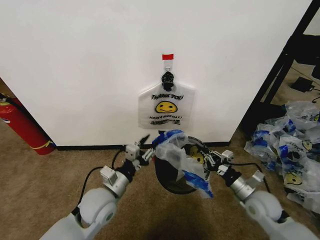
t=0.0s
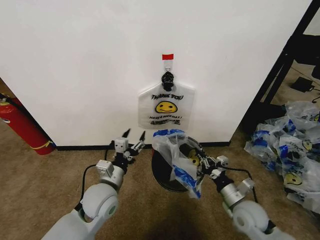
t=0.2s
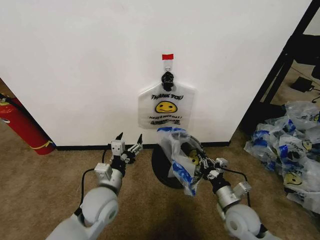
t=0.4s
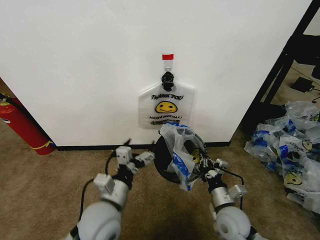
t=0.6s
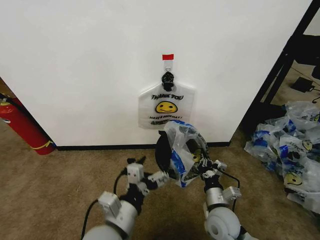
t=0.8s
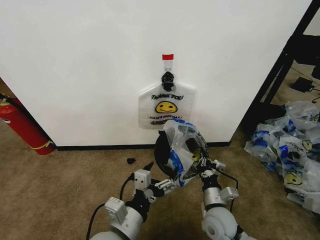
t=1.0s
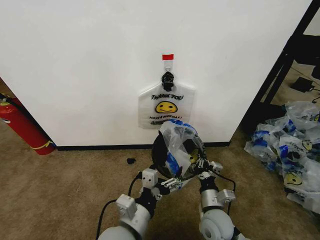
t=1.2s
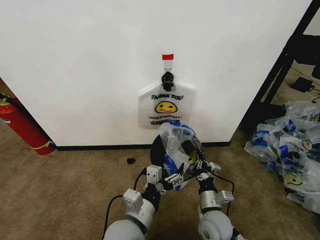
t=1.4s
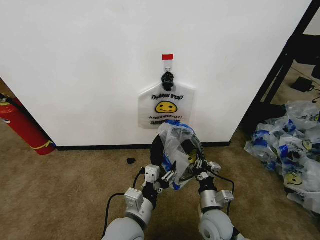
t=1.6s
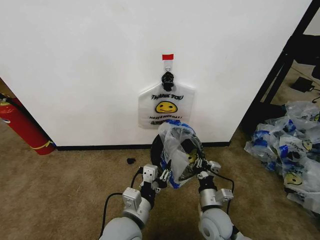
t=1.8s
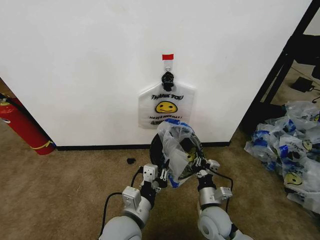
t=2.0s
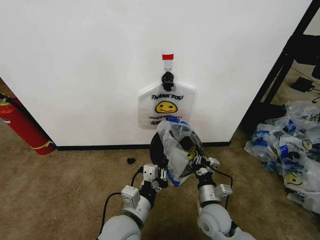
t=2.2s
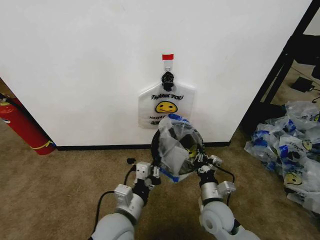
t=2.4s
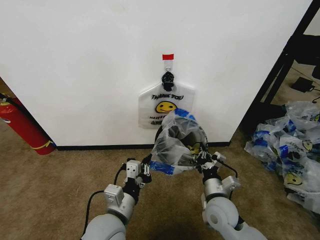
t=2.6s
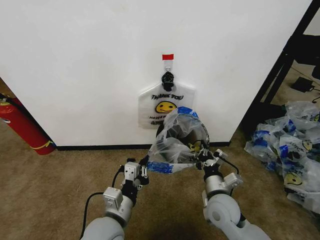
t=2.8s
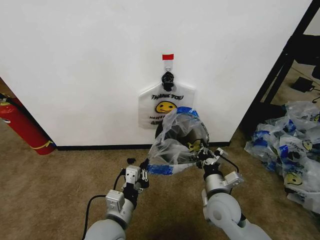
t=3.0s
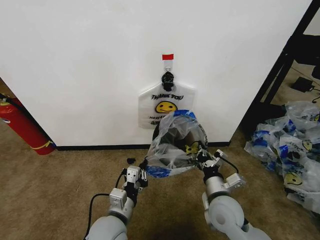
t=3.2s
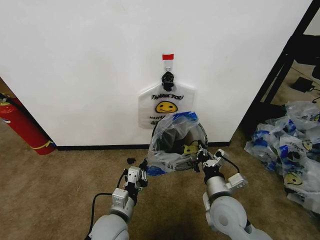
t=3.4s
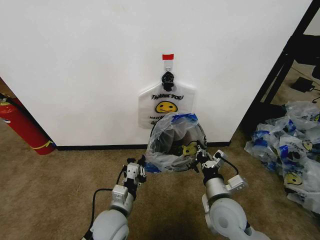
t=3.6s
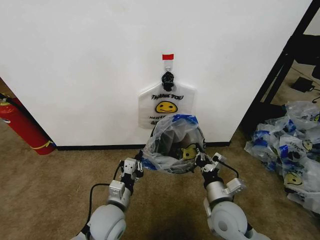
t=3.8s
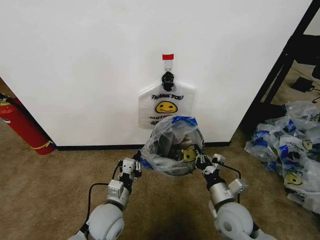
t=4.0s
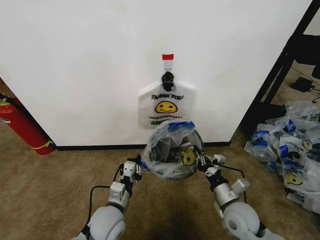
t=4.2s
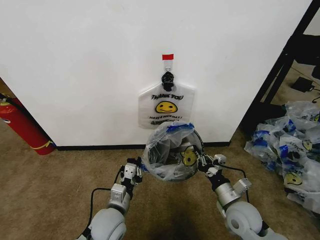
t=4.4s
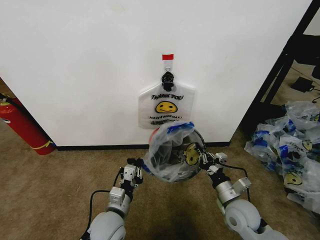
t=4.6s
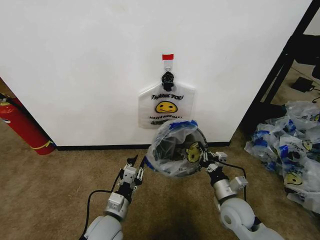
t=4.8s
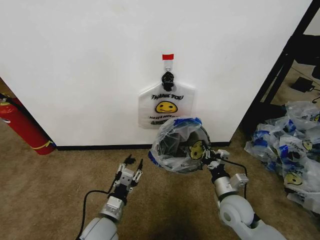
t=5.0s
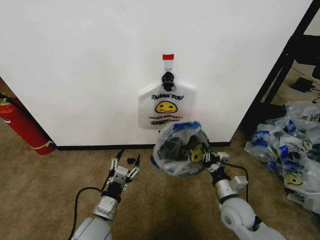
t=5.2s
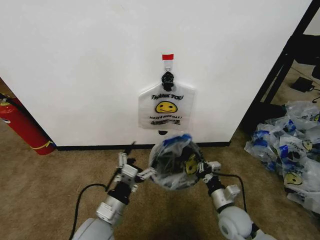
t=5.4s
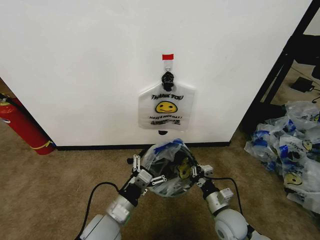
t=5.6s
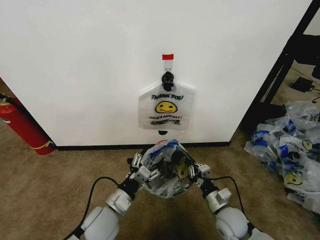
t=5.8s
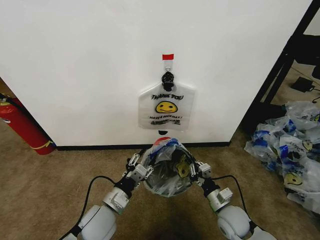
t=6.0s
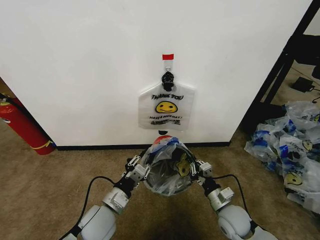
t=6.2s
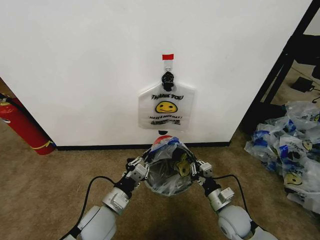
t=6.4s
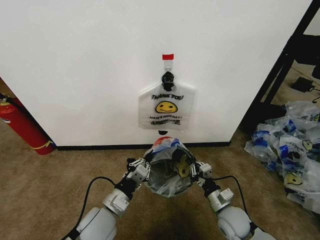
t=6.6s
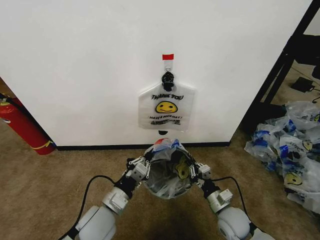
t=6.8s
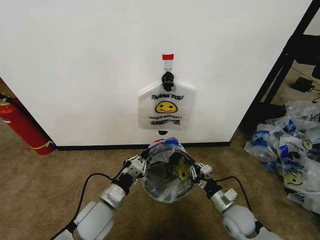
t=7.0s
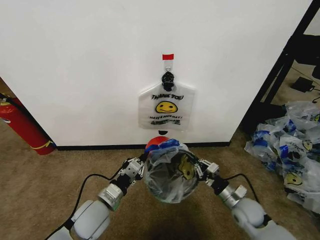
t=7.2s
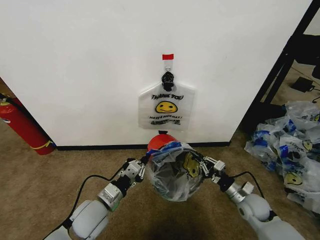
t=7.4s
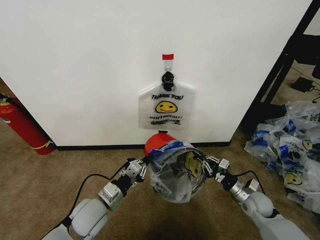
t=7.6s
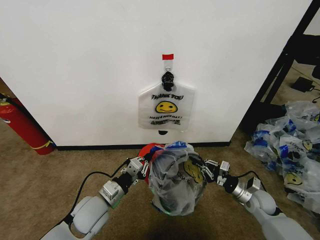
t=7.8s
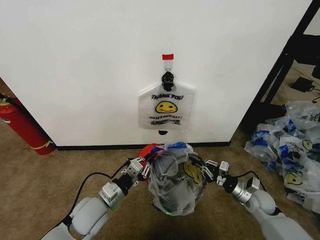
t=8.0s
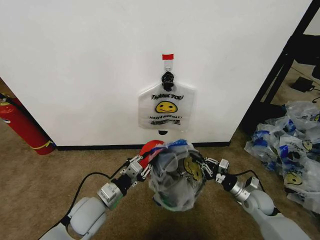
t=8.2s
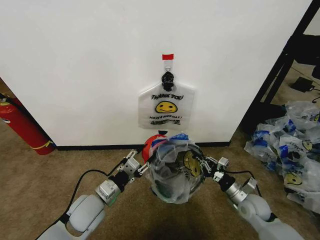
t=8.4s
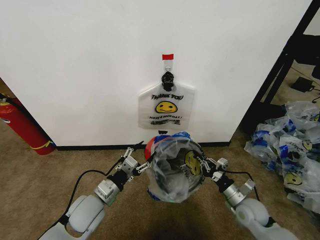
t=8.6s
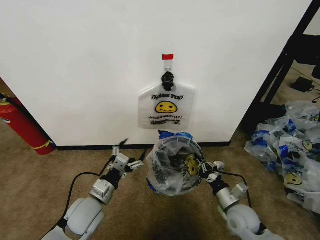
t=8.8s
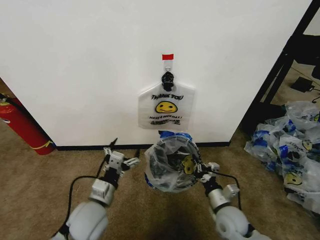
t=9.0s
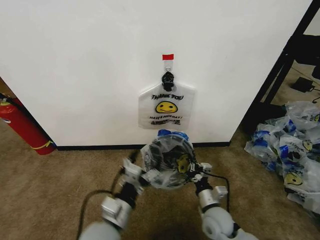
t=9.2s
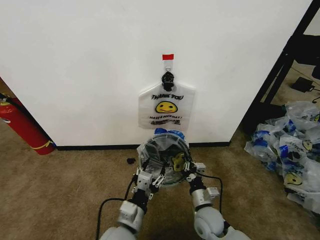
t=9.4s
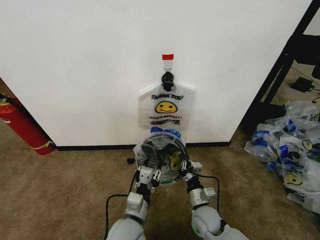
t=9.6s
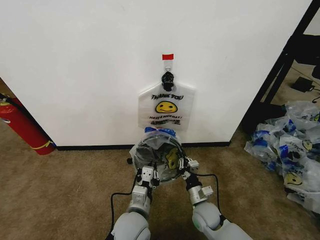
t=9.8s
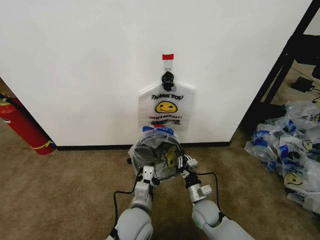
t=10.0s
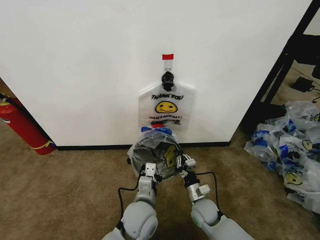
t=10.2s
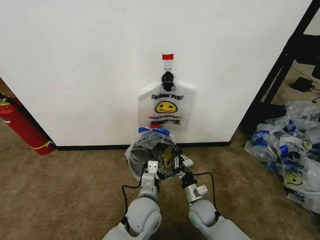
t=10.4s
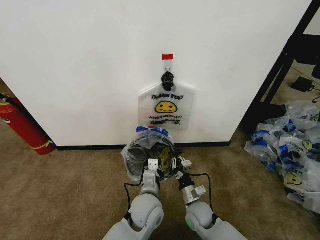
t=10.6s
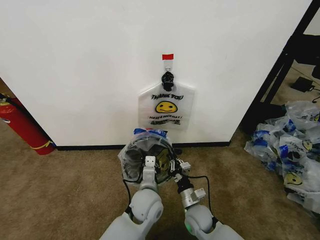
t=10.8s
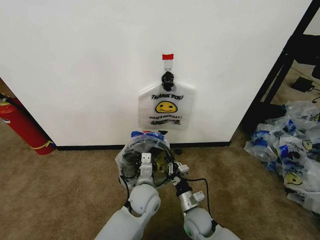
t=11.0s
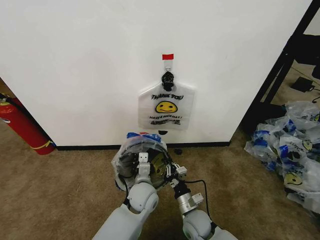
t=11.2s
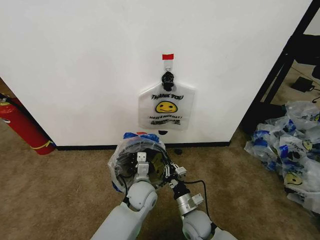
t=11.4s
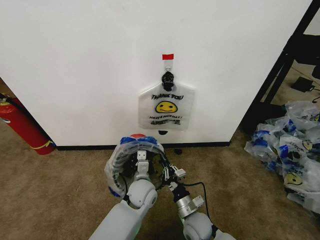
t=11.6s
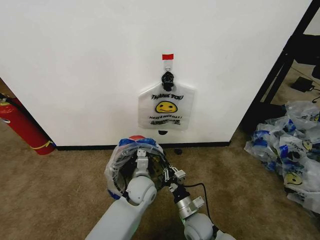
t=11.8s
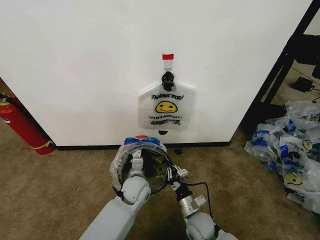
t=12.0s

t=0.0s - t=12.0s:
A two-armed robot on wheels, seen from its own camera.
Task of the whole recording: Pick up the garbage bag from the wall and place it over the trash bin.
t=0.0s - t=1.6s: The right gripper heads to the left, covering roughly 15 cm. The left gripper is displaced to the right and backward by approximately 15 cm.
t=1.6s - t=3.0s: The left gripper moves to the left, about 5 cm, and closes up. Meanwhile the right gripper shifts approximately 5 cm upward.
t=3.0s - t=4.4s: The left gripper heads downward, covering some 5 cm. The right gripper shifts some 5 cm to the right.
t=4.4s - t=6.0s: The right gripper heads downward, covering about 5 cm. The left gripper opens.
t=6.0s - t=7.6s: The left gripper closes its fingers, while the right gripper goes roughly 10 cm to the right and forward.
t=7.6s - t=9.0s: The left gripper opens up; the right gripper goes about 15 cm to the left and backward.
t=9.0s - t=10.4s: The right gripper shifts roughly 10 cm to the left and downward, while the left gripper goes some 15 cm to the right, and closes.
t=10.4s - t=12.0s: The left gripper shifts roughly 10 cm forward, while the right gripper ends up some 5 cm from where it was.

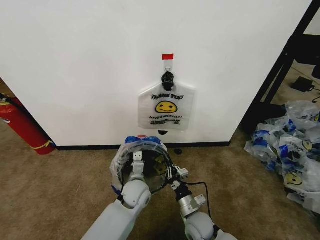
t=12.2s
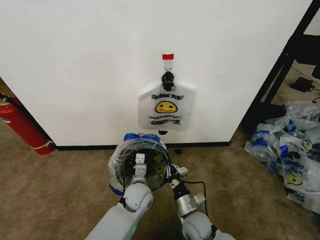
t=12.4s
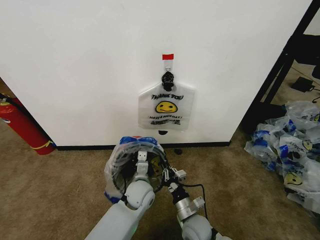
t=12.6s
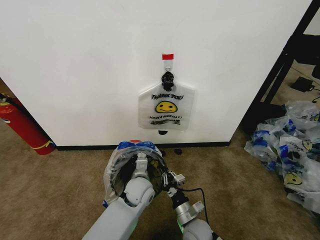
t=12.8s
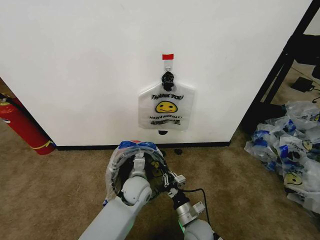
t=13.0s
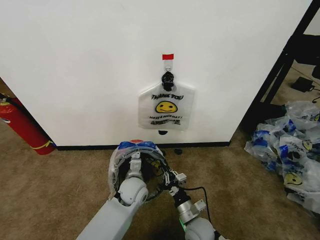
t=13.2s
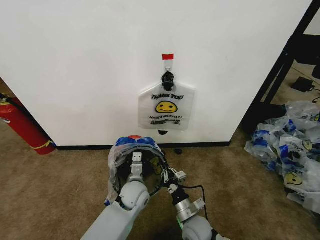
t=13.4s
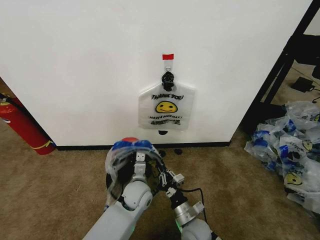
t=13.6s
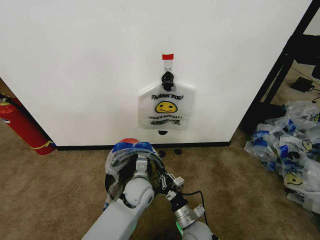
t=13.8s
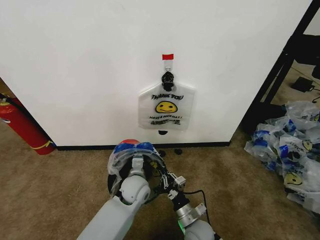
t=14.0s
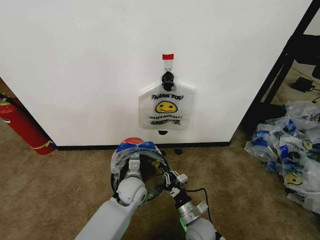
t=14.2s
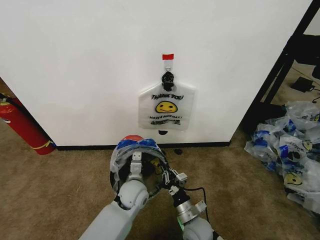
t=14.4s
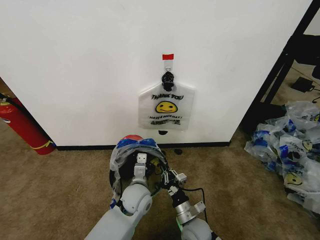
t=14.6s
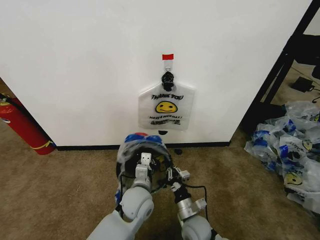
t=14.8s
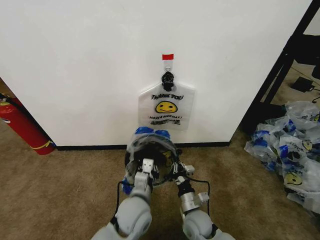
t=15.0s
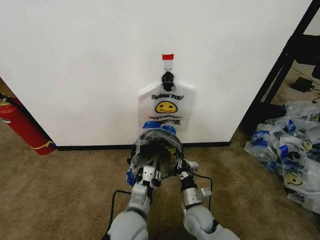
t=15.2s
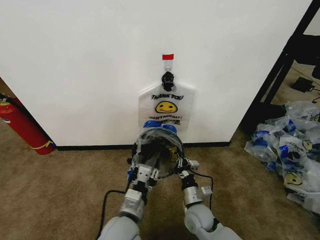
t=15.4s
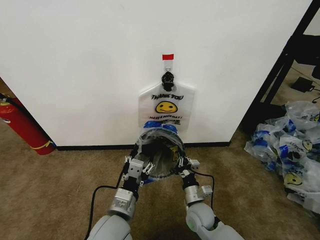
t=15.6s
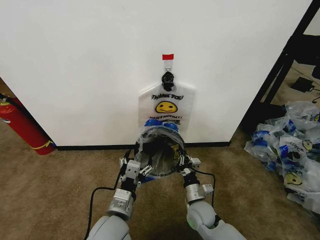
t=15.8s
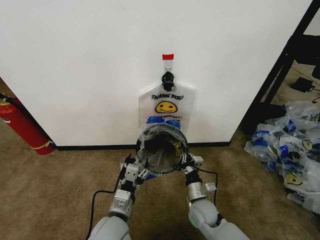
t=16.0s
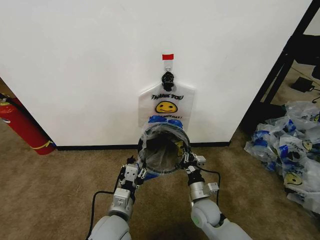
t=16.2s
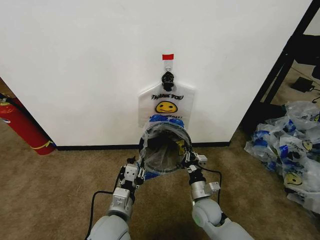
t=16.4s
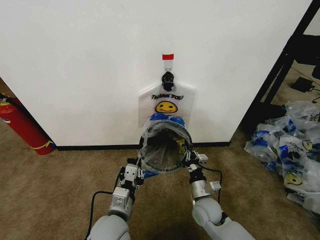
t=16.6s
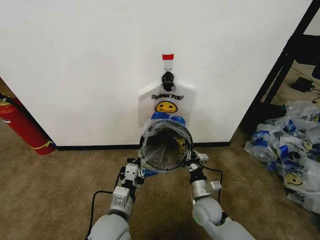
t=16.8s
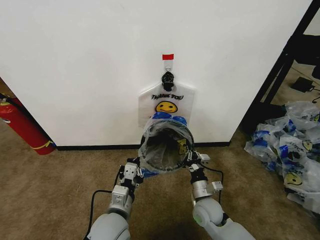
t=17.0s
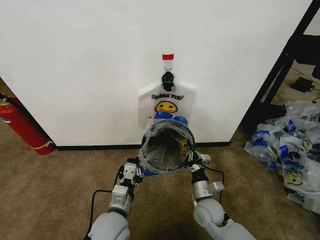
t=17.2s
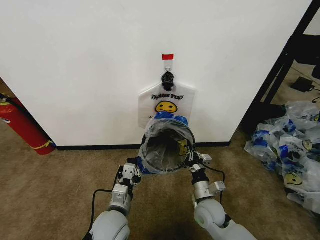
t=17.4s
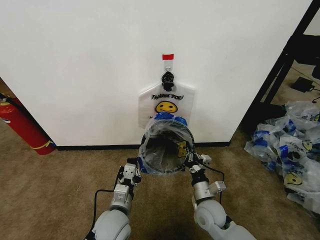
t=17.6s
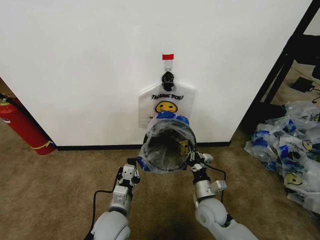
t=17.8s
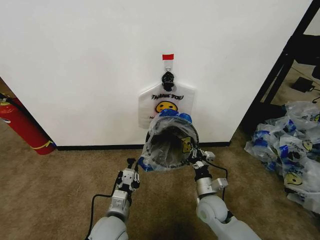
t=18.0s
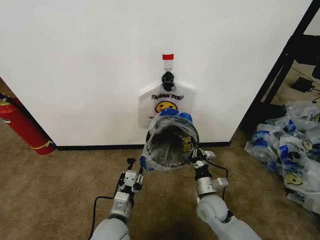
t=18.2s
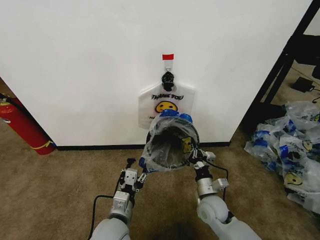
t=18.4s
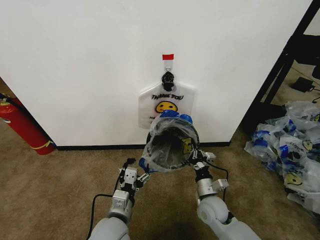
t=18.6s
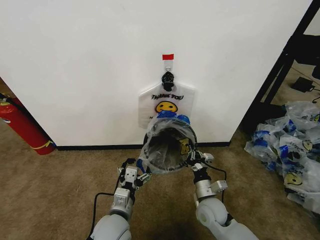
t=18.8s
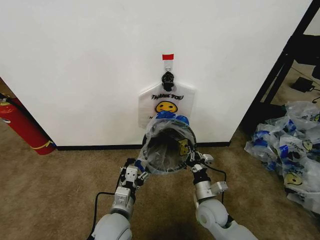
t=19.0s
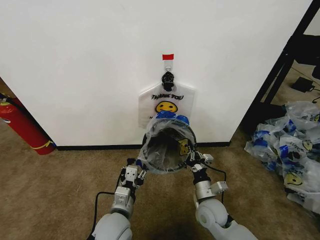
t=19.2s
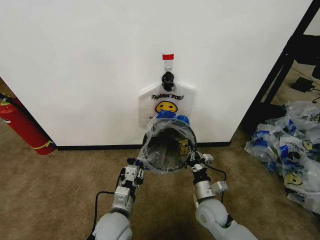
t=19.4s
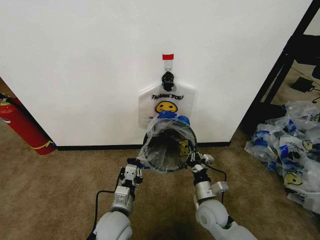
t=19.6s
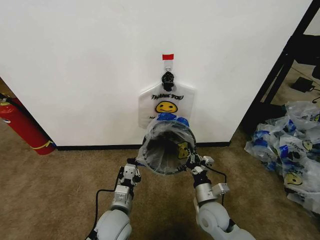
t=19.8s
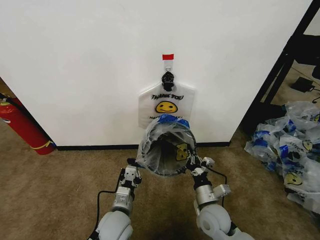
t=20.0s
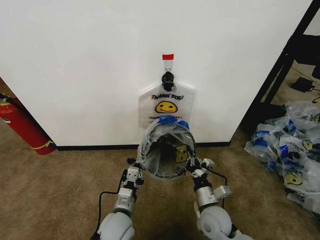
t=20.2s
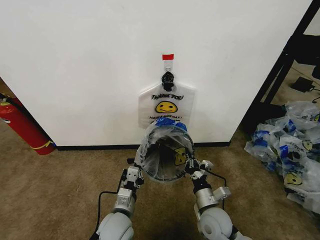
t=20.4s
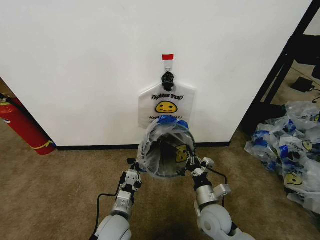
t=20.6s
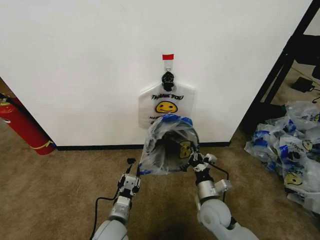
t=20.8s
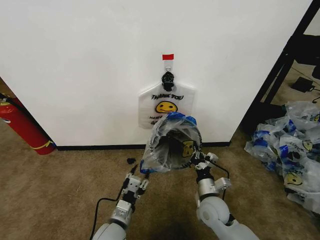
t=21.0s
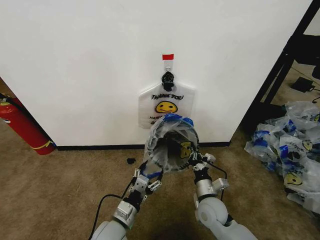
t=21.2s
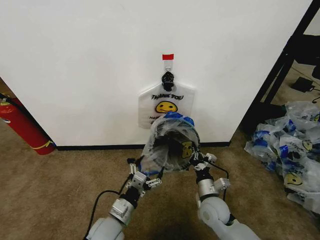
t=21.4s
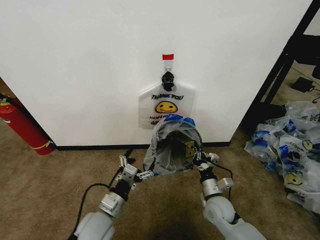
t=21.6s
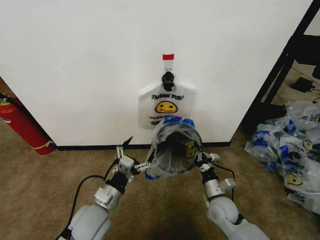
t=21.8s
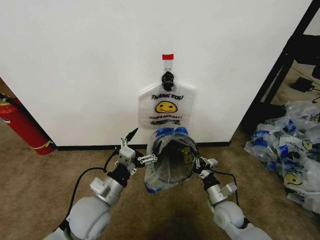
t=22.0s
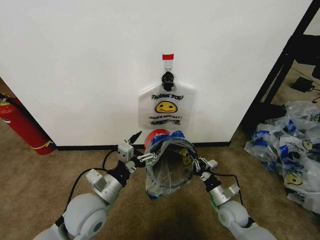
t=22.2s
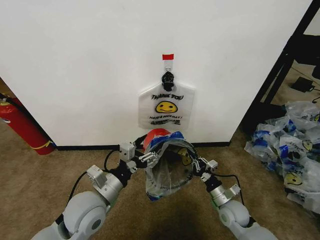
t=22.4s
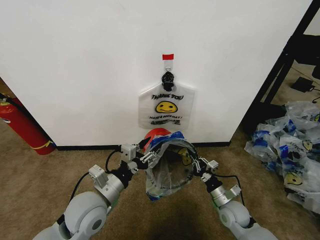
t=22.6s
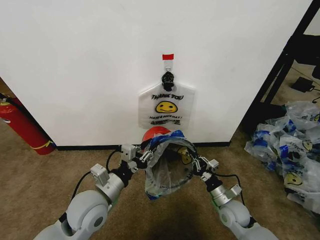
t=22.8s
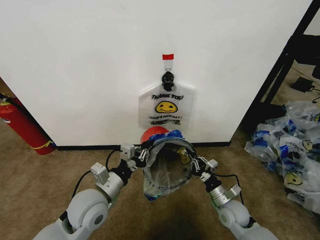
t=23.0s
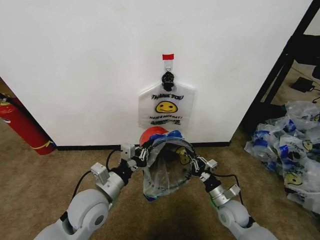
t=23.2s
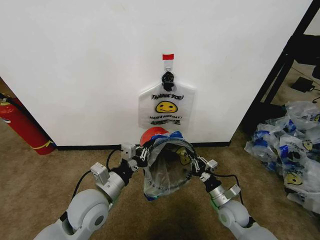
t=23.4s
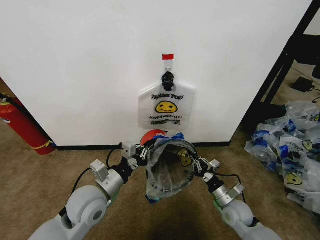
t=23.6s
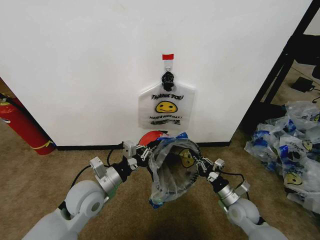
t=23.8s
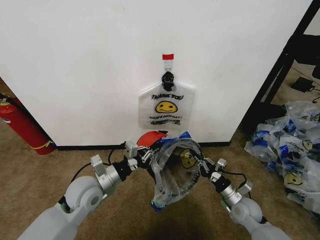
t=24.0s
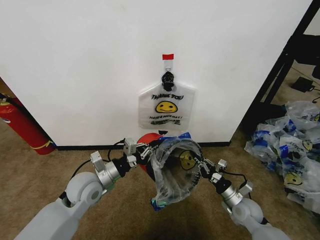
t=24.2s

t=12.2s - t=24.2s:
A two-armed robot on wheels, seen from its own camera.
Task of the whole recording: Pick up the garbage bag from the wall and place it over the trash bin.
t=12.2s - t=13.8s: The grippers make only small movements.
t=13.8s - t=15.2s: The right gripper moves roughly 5 cm. Meanwhile the left gripper goes roughly 15 cm backward.
t=15.2s - t=16.6s: The left gripper opens and closes again.
t=16.6s - t=18.2s: The grippers make only small movements.
t=18.2s - t=19.8s: The left gripper closes.
t=19.8s - t=21.2s: The left gripper opens its fingers.
t=21.2s - t=22.6s: The right gripper shifts approximately 10 cm to the right; the left gripper shifts some 15 cm upward.
t=22.6s - t=24.2s: The left gripper moves forward, some 5 cm, and closes.
